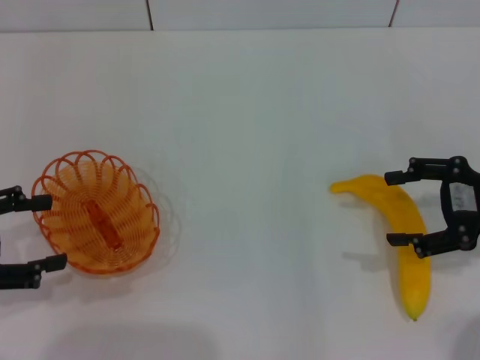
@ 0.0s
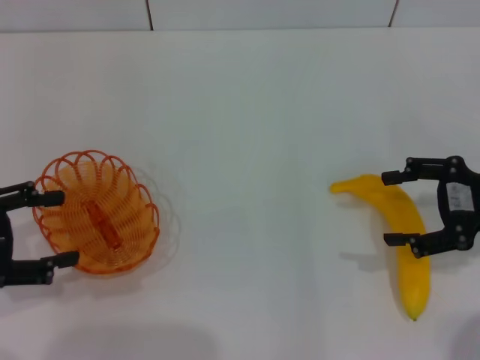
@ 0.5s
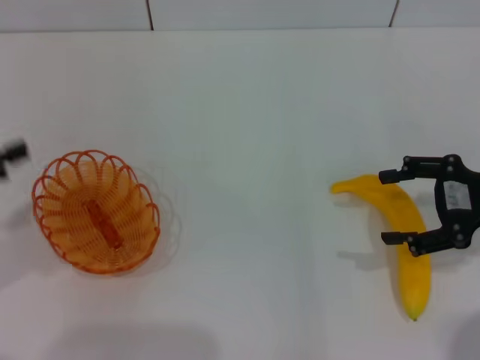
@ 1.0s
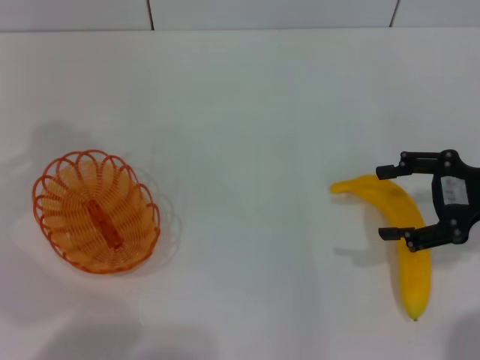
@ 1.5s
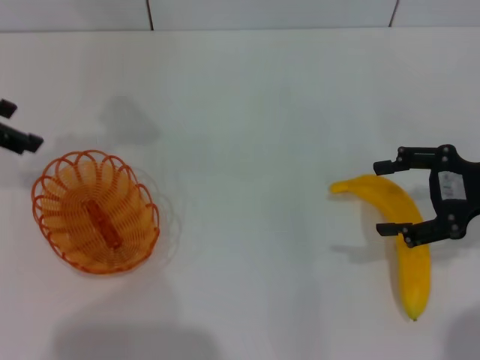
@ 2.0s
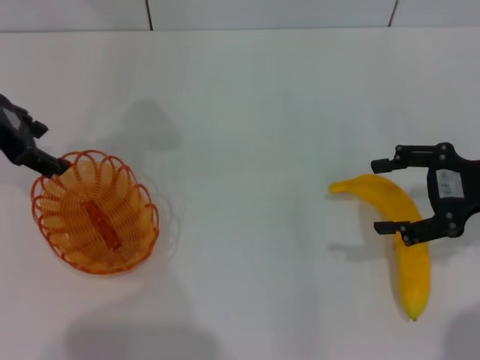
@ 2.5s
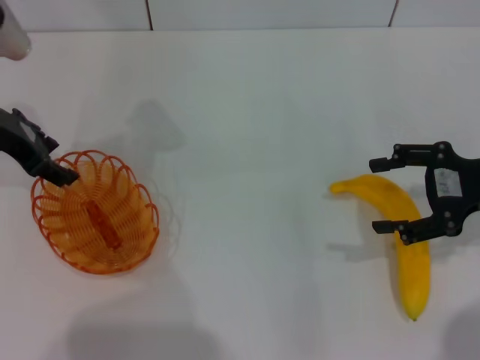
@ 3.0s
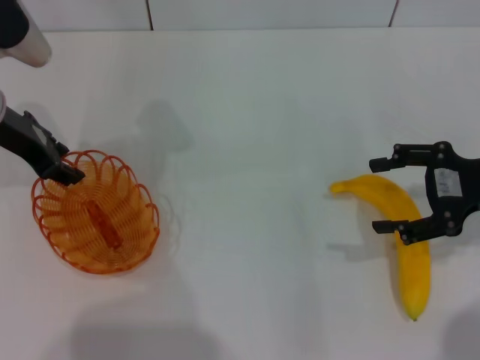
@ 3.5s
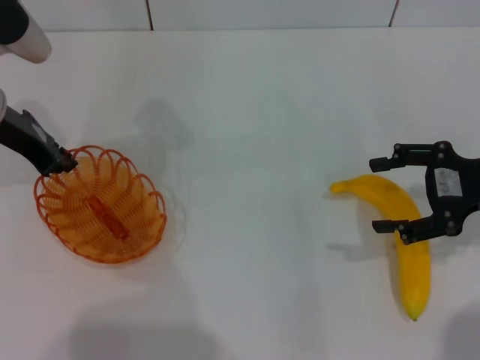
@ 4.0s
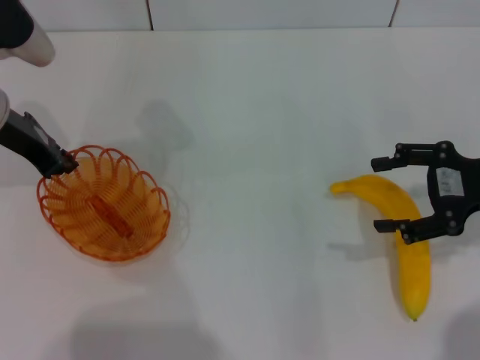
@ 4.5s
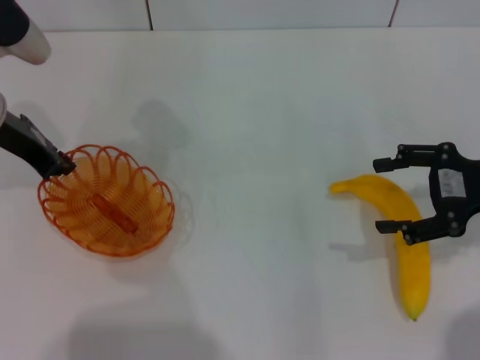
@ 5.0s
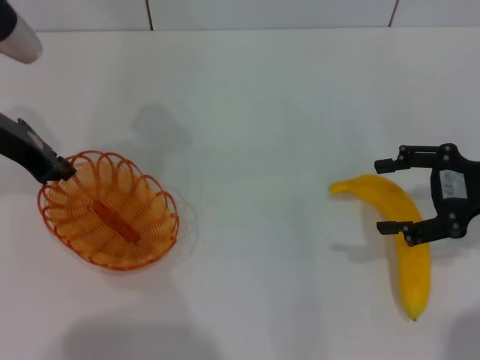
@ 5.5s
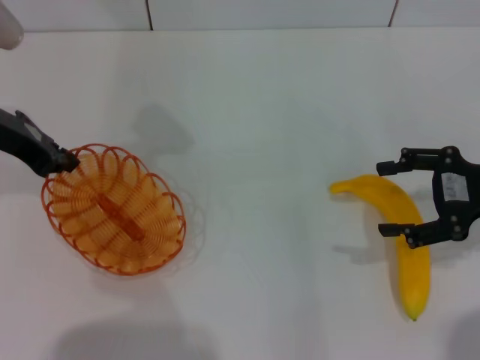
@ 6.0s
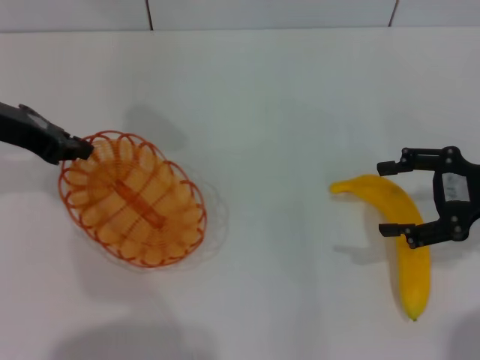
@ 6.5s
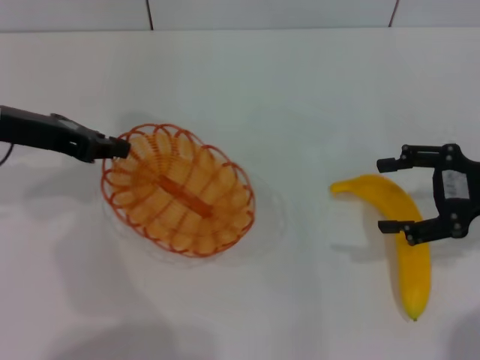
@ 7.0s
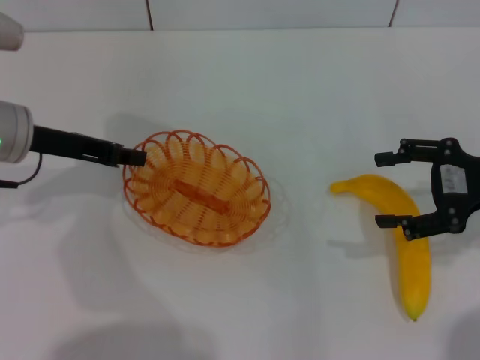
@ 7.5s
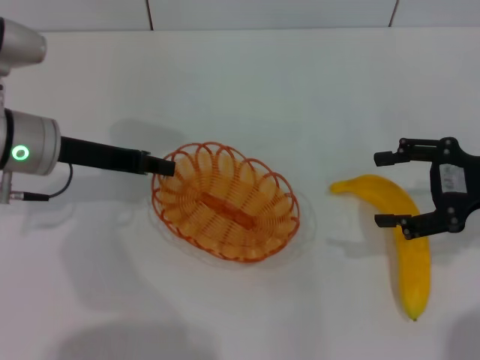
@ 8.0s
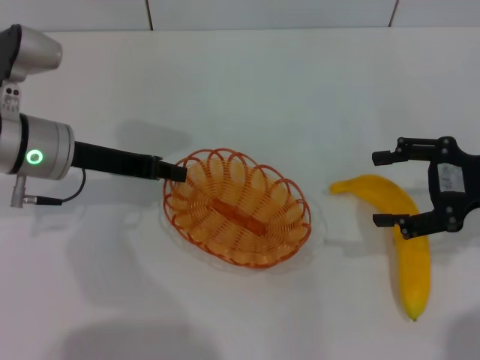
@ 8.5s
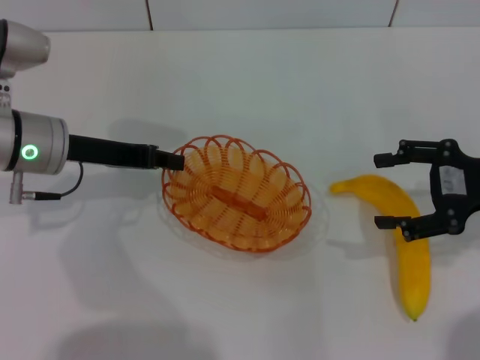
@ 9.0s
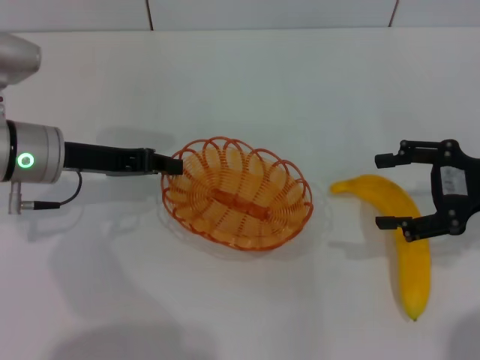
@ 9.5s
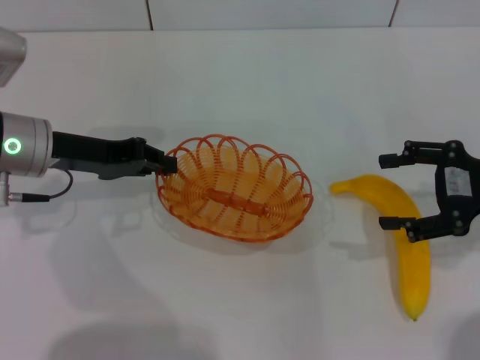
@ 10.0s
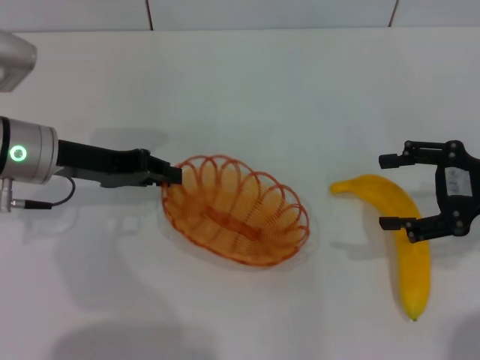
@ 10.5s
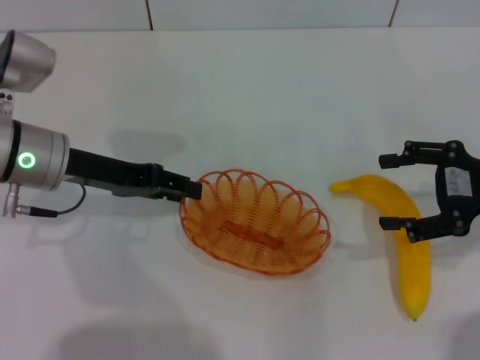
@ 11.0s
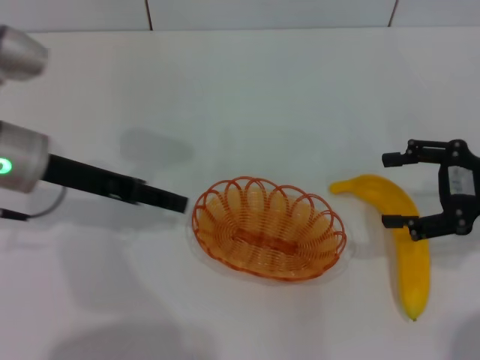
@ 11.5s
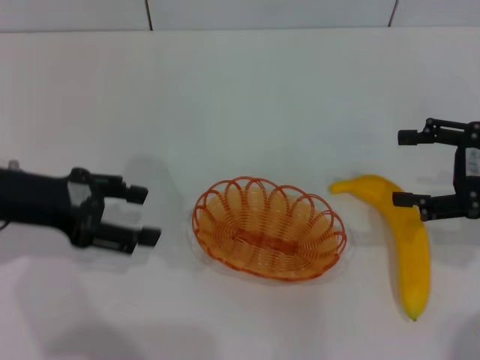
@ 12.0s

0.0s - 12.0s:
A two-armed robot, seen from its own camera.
Step, 0.0s - 6.5s: Pick up the basket with the left gripper.
Step, 7.0s - 11.5s: Place the basket in the center of view with the left gripper.
0.0s - 2.0s: The left gripper travels forward and upward by approximately 15 cm.
2.0s - 4.0s: The left gripper travels to the right and downward by some 10 cm, and closes its fingers.
4.0s - 6.0s: The grippers move only a little.
6.0s - 8.0s: The left gripper moves downward, some 5 cm.
8.0s - 10.0s: The grippers make only small movements.
10.0s - 12.0s: The left gripper goes about 5 cm backward, and opens its fingers.

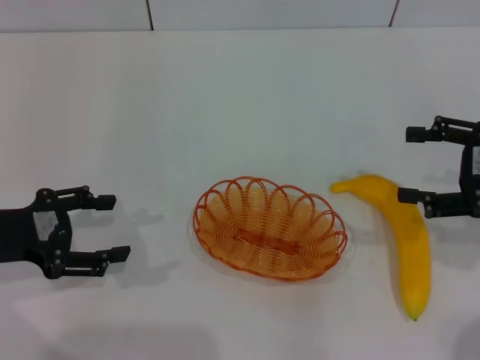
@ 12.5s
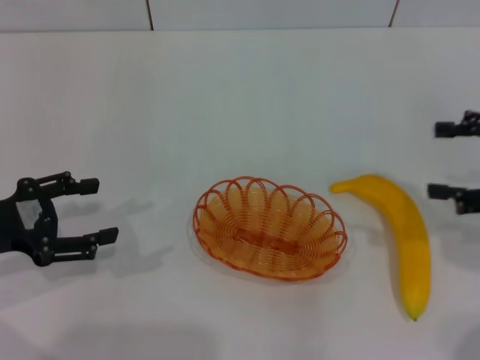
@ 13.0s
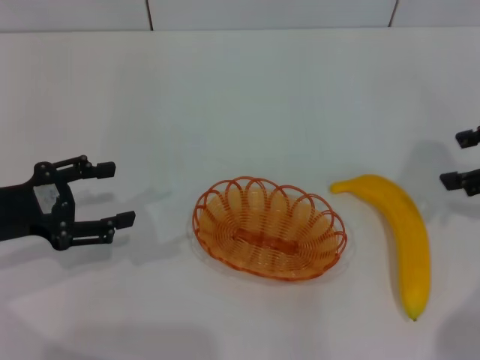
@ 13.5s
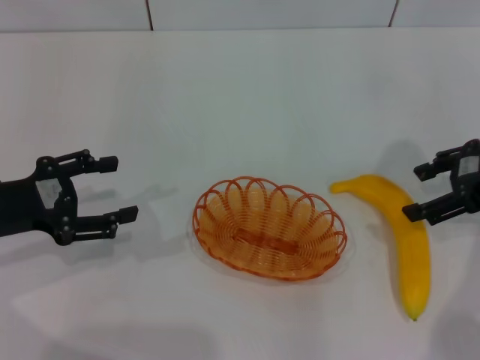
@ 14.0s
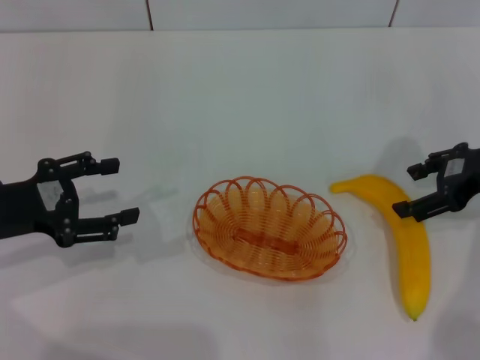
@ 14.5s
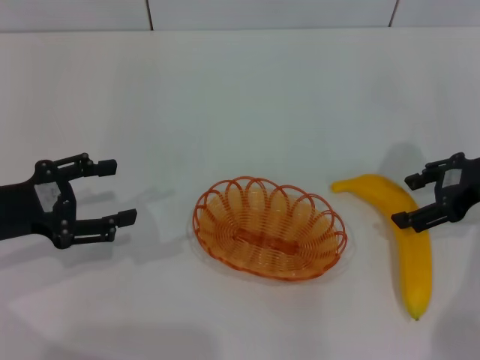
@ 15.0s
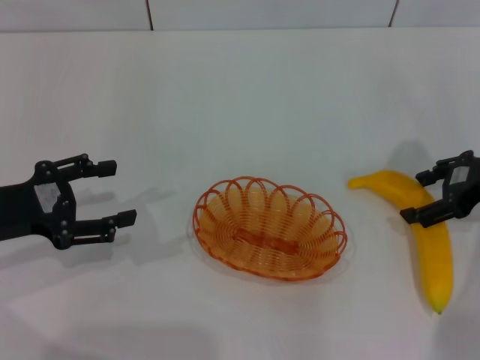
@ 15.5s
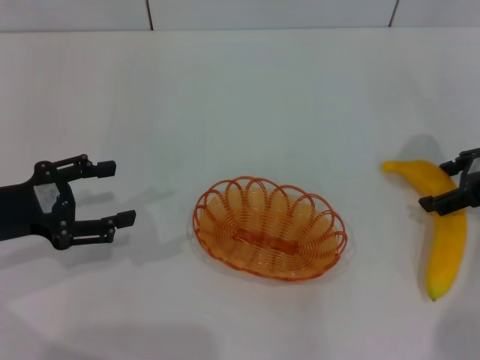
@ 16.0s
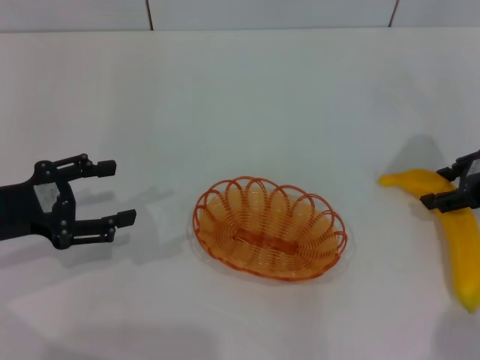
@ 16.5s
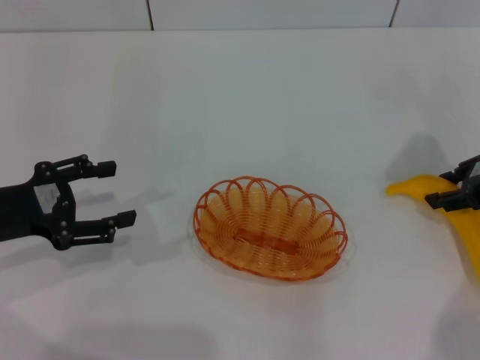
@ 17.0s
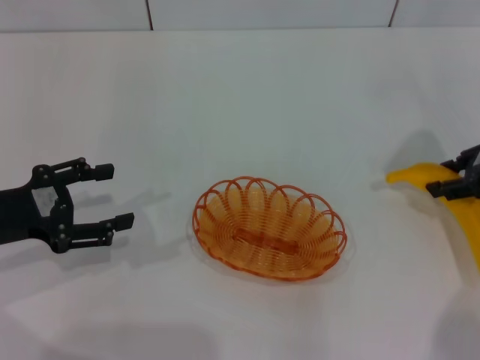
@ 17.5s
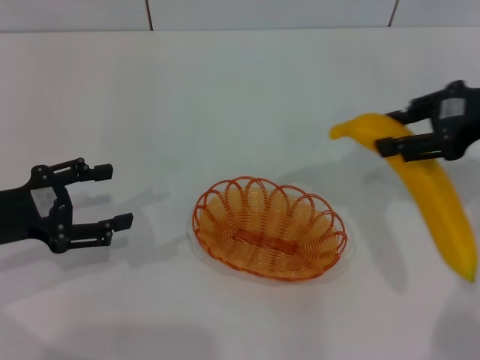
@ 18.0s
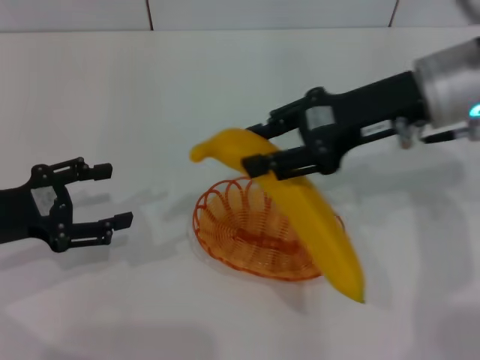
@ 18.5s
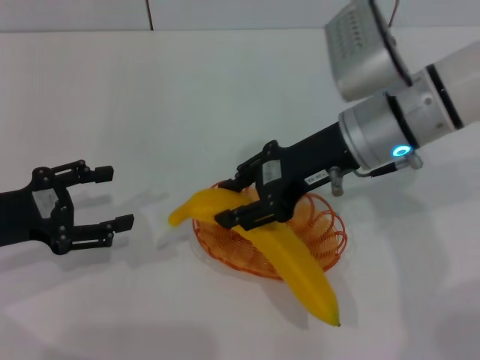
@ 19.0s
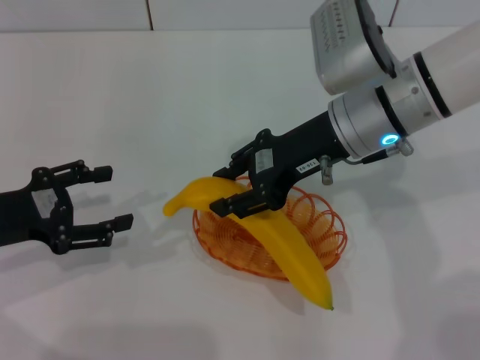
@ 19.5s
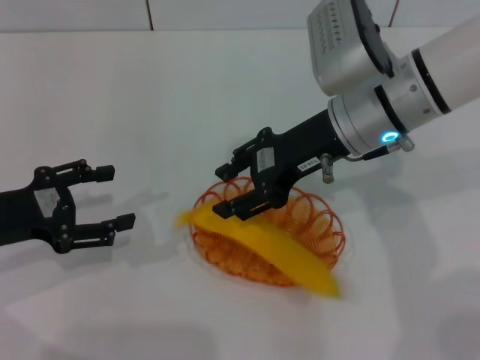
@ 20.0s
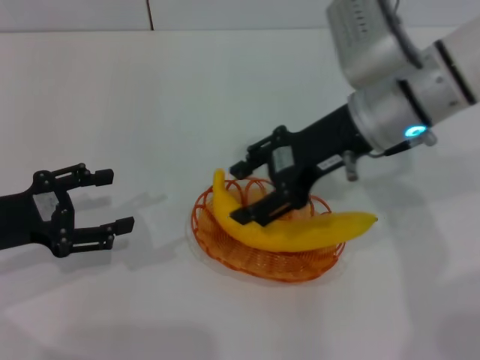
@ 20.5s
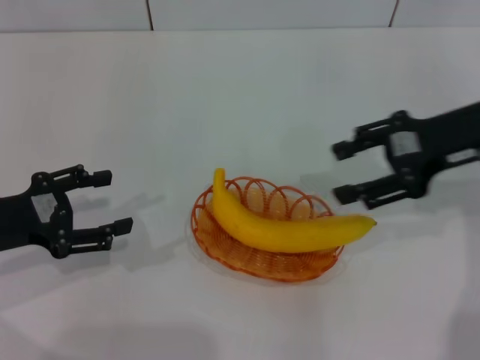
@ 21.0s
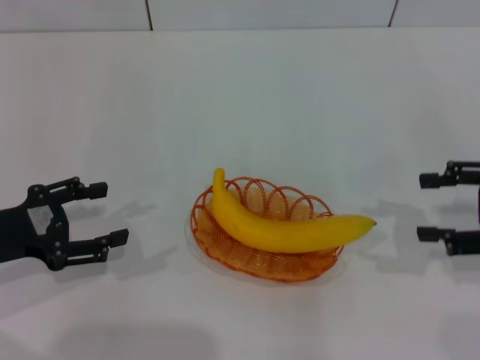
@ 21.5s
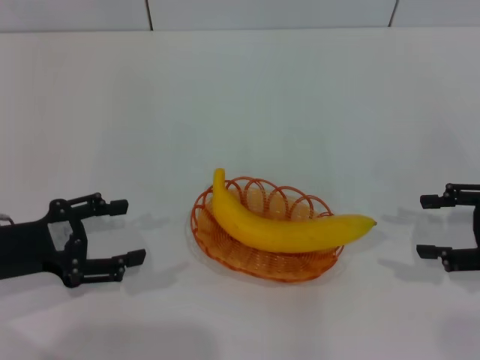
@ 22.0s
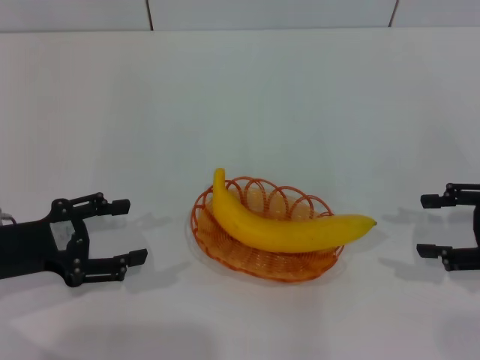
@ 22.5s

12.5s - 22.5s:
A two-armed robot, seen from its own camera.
Step, 12.5s - 17.5s: Pick up the banana with the right gripper.
Step, 18.0s - 20.0s: Place the banana into the basket with the right gripper.
12.5s - 14.5s: The right gripper travels forward by roughly 5 cm.
14.5s - 16.5s: The grippers move only a little.
16.5s - 18.5s: The right gripper is displaced to the left and upward by approximately 15 cm, and closes up.
18.5s - 20.5s: The right gripper shifts by about 5 cm, and opens its fingers.
20.5s - 22.5s: The right gripper heads to the right and backward, covering approximately 25 cm.
